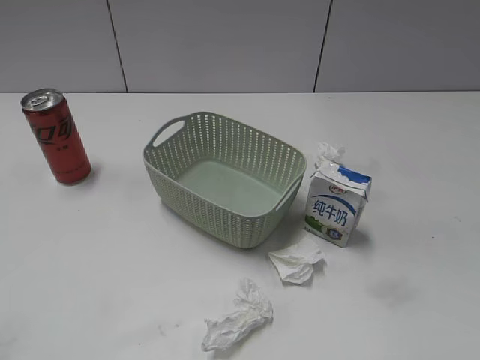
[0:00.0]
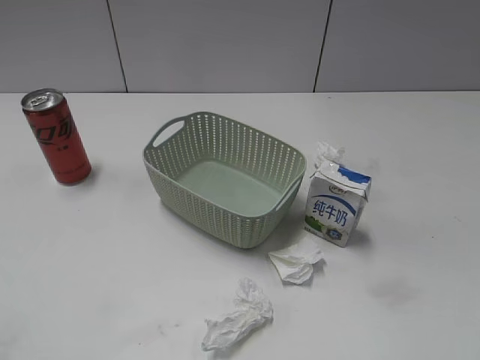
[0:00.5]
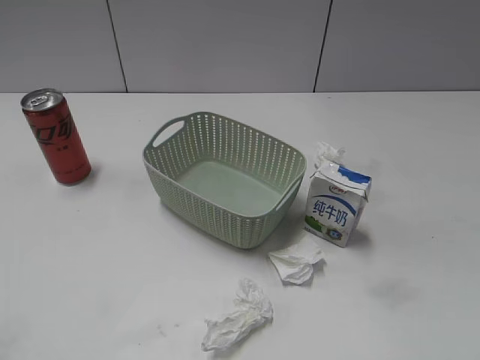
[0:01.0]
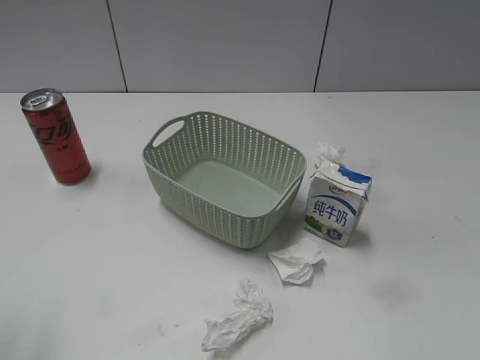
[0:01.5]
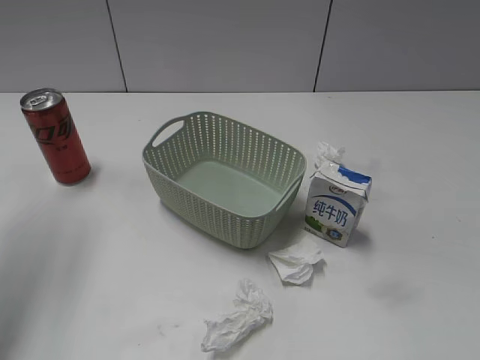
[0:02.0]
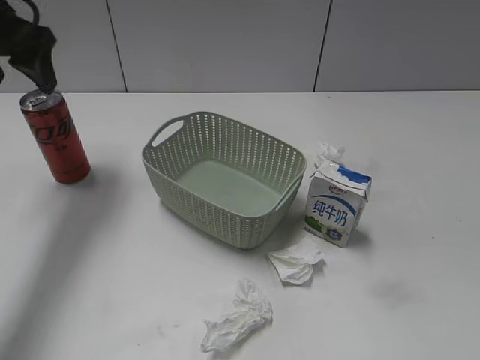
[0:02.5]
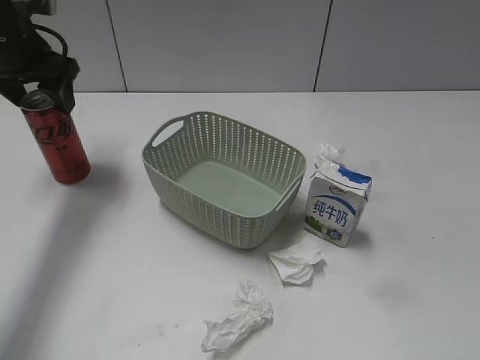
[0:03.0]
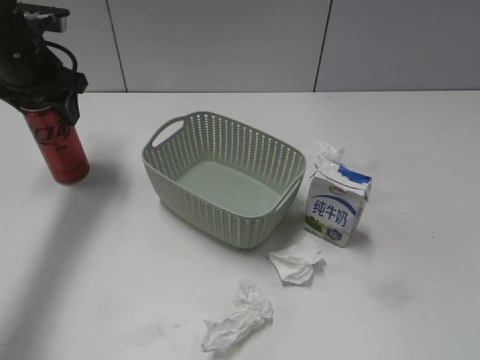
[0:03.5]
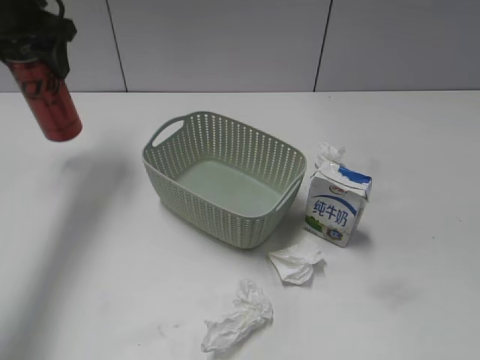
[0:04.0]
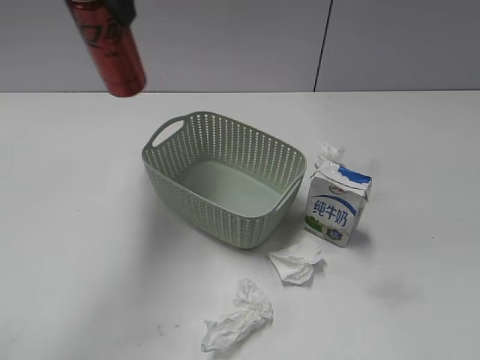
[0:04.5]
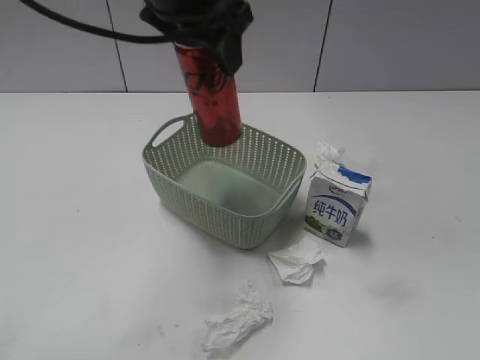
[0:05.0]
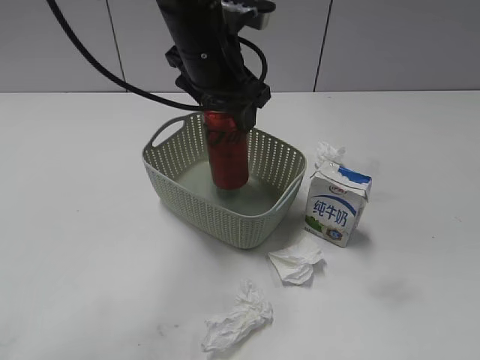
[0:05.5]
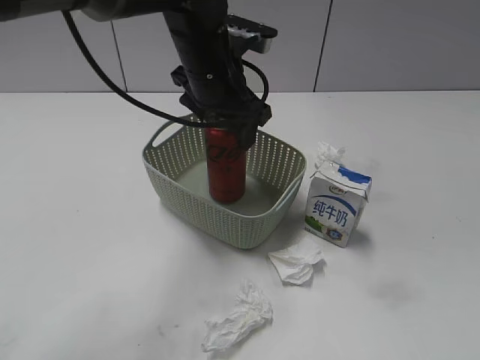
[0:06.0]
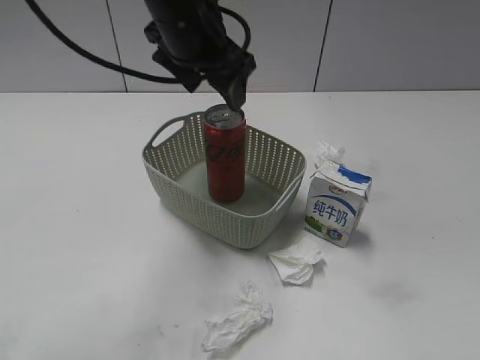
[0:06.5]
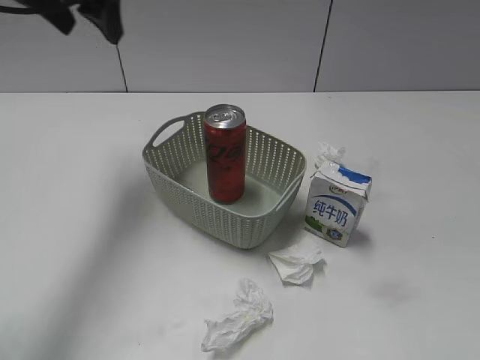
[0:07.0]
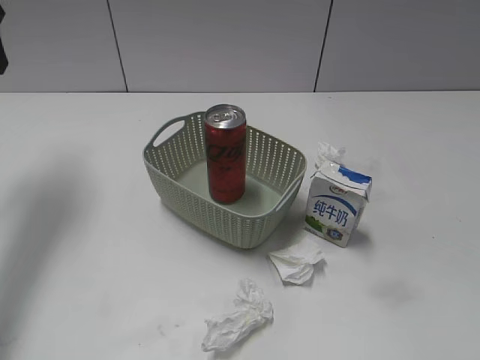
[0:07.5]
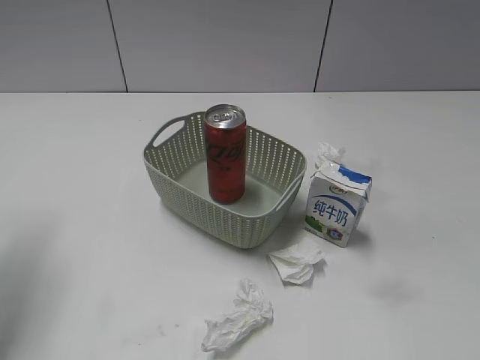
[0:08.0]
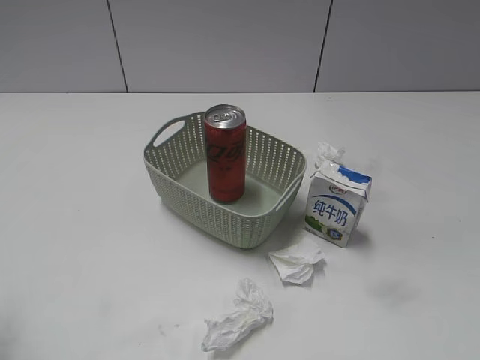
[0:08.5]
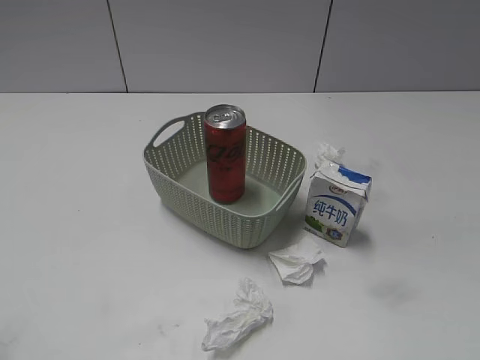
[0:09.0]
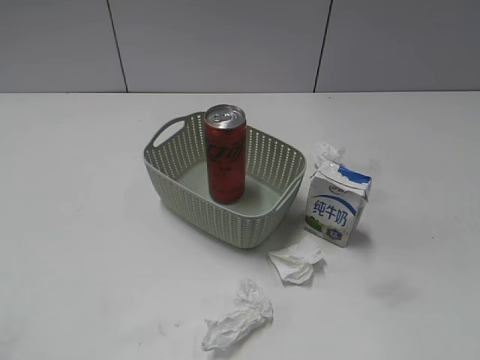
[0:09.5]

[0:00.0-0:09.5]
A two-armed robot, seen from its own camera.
Step, 2.5 to 3.5 s: Grasp the cola can with left gripper.
Step, 4.0 to 6.5 s: Place the cola can in the basket with left gripper.
2.0 to 4.0 s: The left gripper is displaced forward and downward by approximately 20 cm, and closes up.
4.0 to 5.5 s: The left gripper goes some 25 cm to the right.
5.5 to 7.5 s: The left gripper moves to the left, some 30 cm, and opens up.
7.5 to 9.5 s: The left gripper moves backward, about 35 cm.

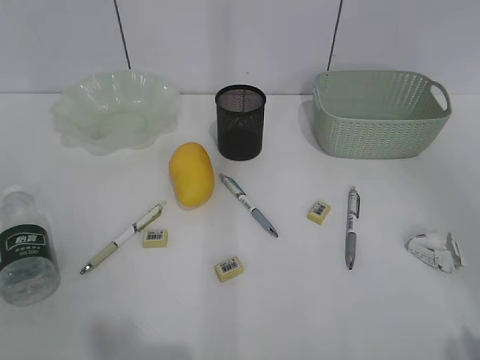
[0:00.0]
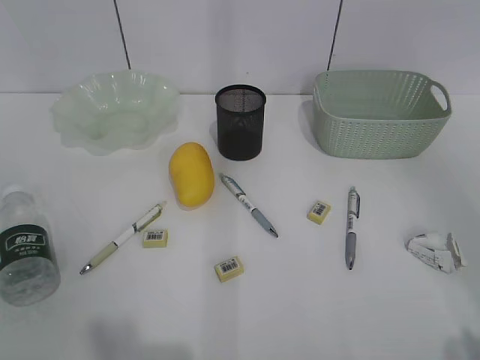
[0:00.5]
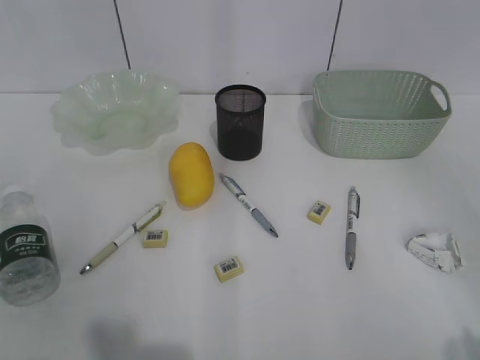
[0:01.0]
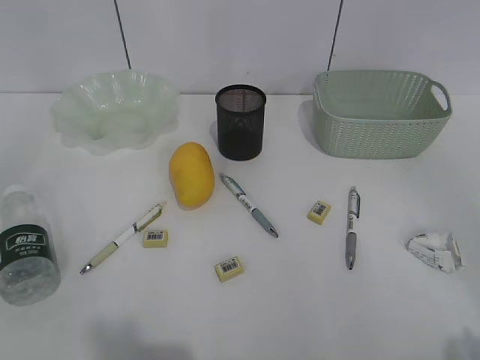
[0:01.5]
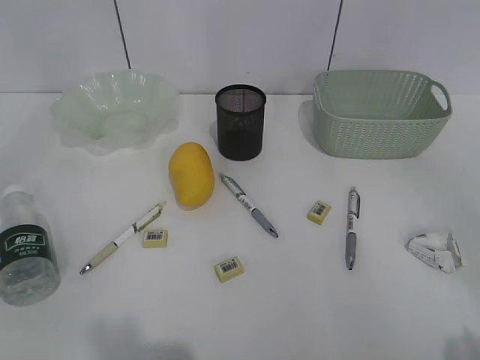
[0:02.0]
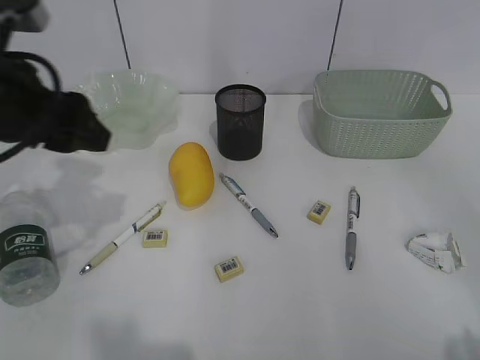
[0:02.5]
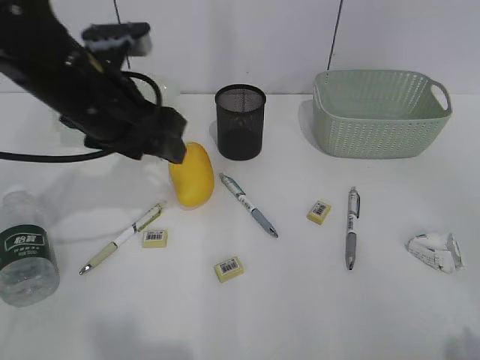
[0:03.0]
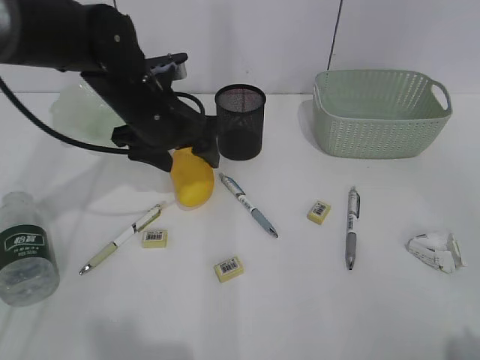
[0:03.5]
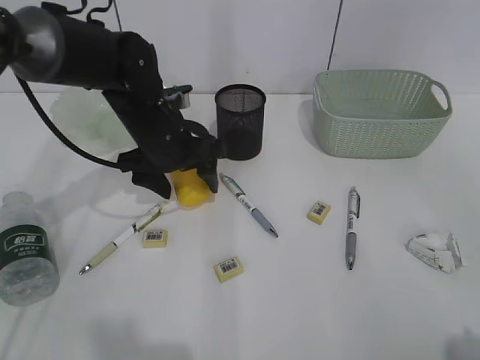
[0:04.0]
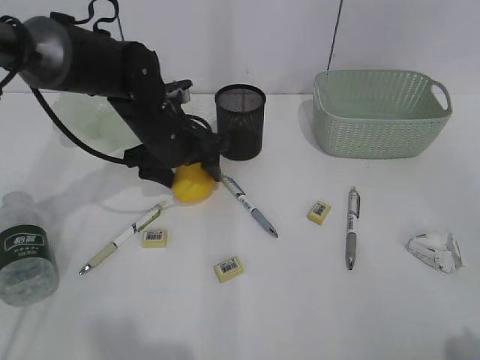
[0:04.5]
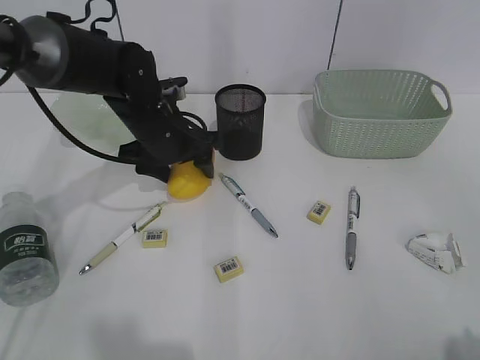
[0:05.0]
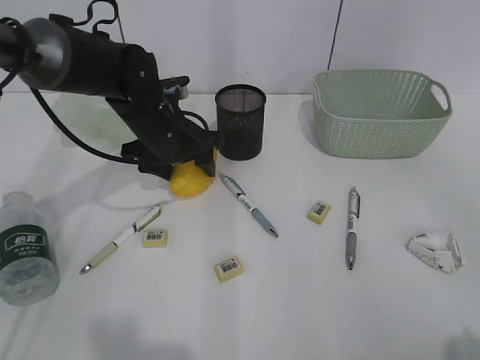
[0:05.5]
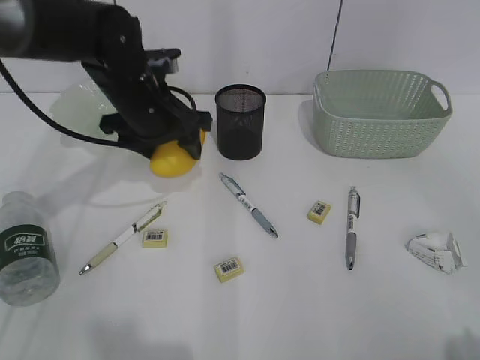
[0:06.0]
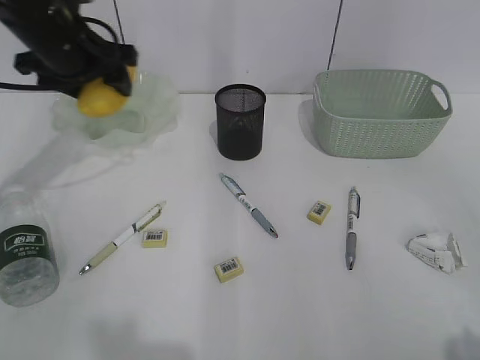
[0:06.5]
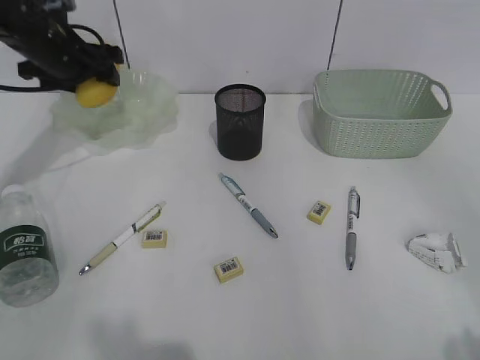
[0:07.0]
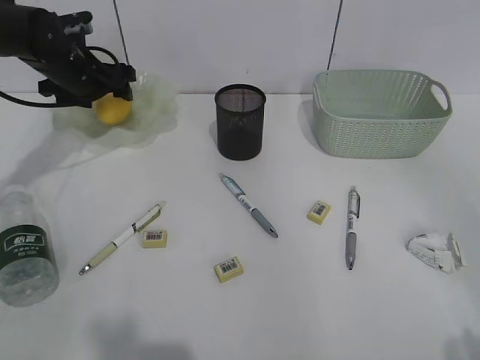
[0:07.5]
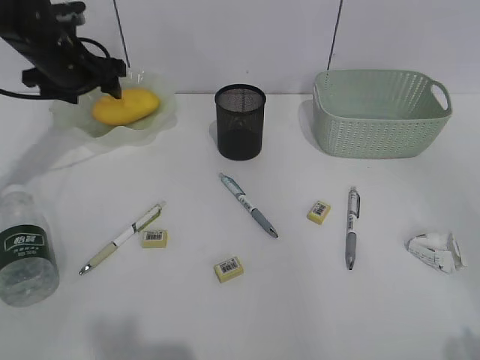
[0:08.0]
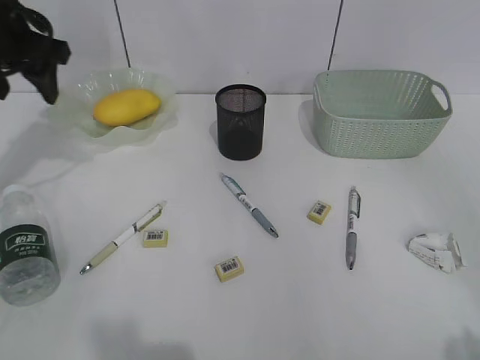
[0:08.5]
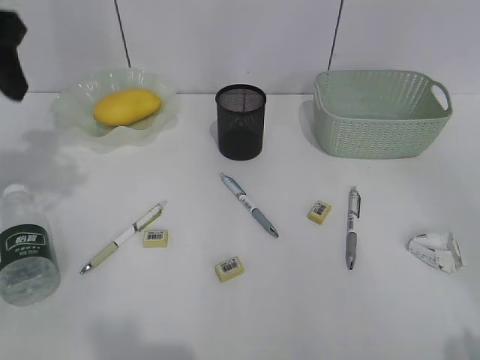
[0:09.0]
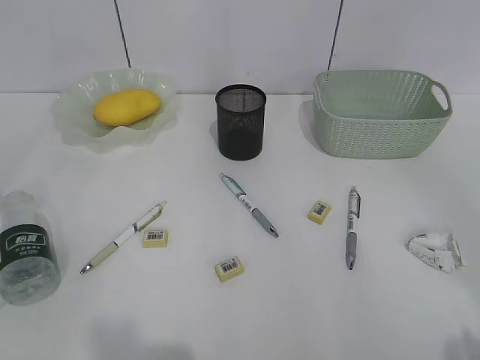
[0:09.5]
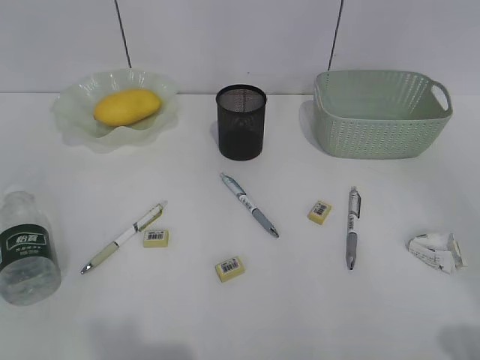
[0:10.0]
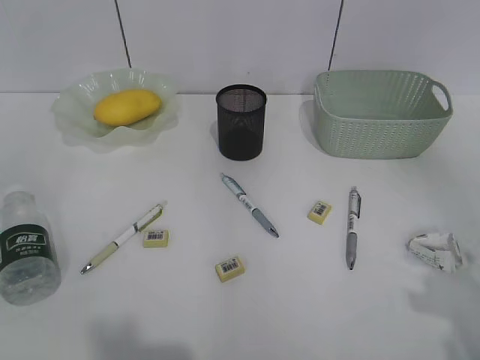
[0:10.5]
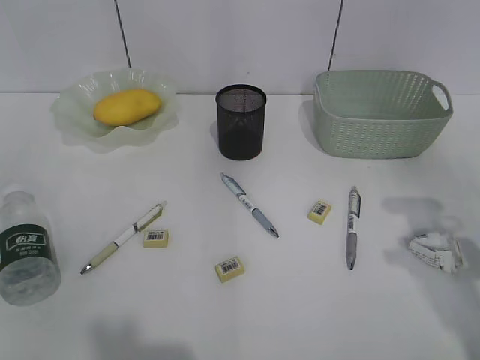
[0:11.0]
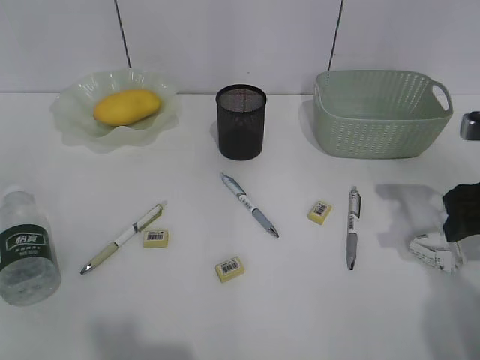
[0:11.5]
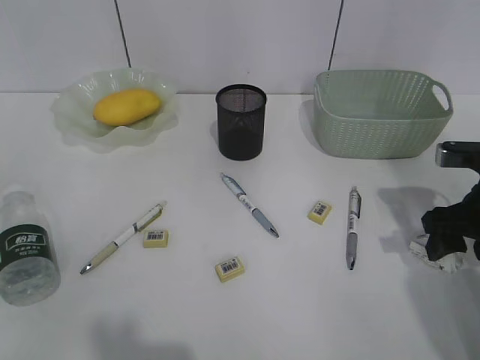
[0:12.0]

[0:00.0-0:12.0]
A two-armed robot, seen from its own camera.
Step, 2.5 to 5.5 s: Grasp the mango with left gripper.
Step, 6.0 to 7.5 s: Place the mango in the plate with left gripper.
2.0 to 4.0 s: The left gripper goes some 30 cm to the right, forward and downward.
4.0 to 6.0 s: The grippers move only a little.
6.0 to 8.0 s: The left gripper is displaced to the left and forward by approximately 15 cm.
8.0 to 10.0 s: The left gripper shifts about 40 cm backward.
10.0 to 12.0 s: The right gripper heads forward and downward, covering some 30 cm.

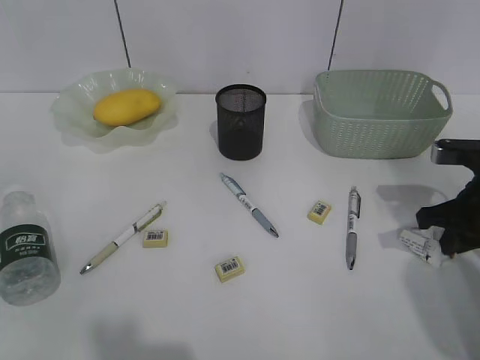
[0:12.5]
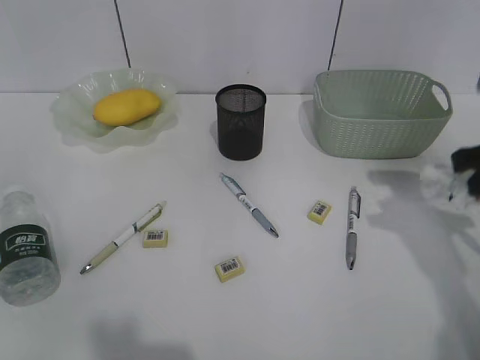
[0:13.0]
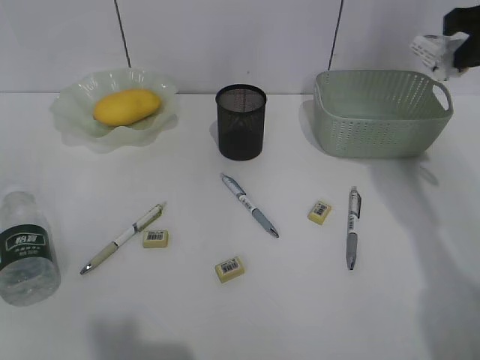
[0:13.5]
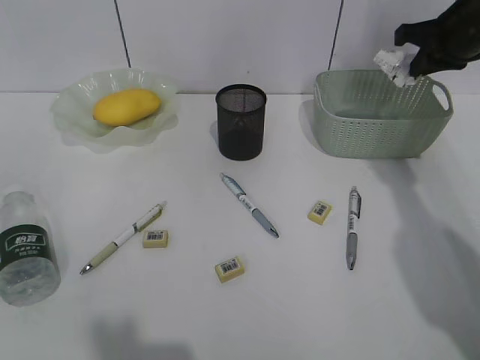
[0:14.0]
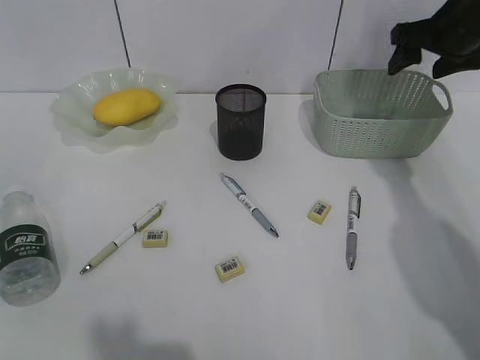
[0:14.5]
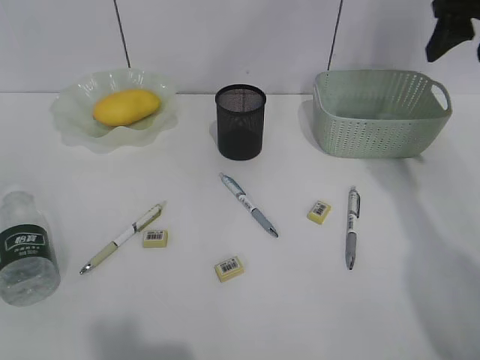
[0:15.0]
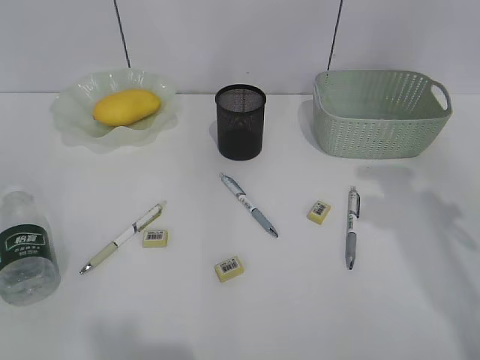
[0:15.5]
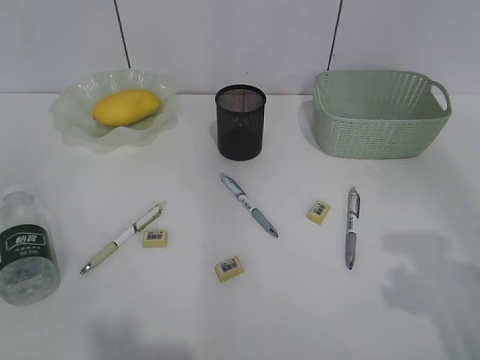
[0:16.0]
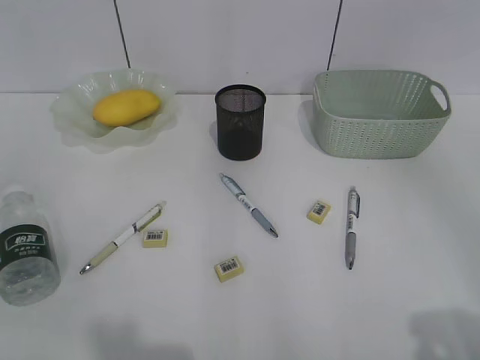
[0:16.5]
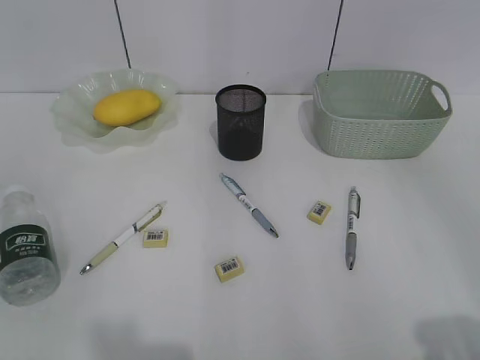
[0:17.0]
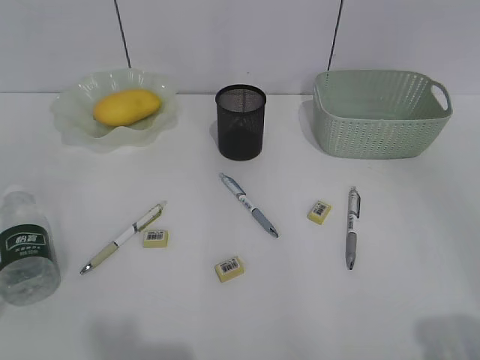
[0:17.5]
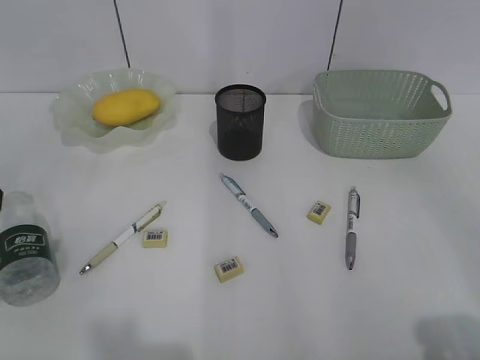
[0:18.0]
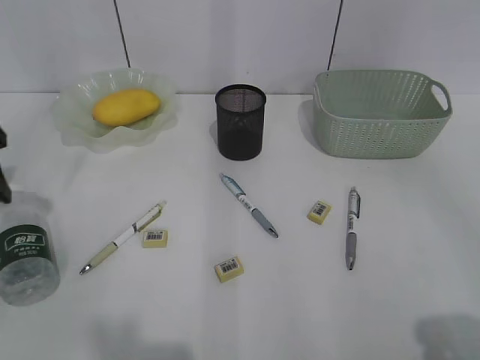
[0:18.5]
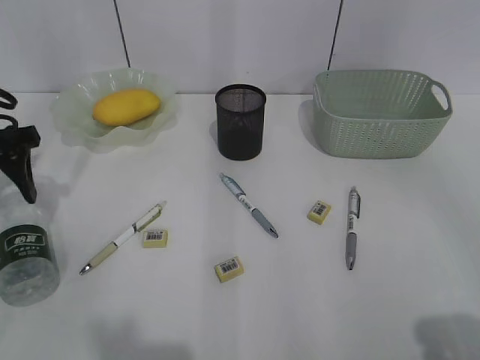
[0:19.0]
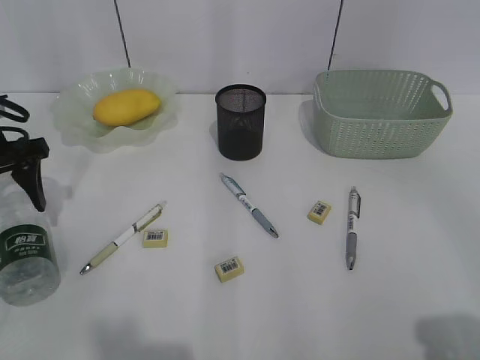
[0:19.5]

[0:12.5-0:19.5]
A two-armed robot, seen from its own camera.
Step, 13.0 to 14.0 s: Place the waste paper in the basket with right gripper.
12.5 to 14.5 s: The right gripper goes some 20 cm forward and upward, and opens up.
14.5 to 16.0 s: The right gripper travels backward by about 30 cm.
17.5 to 19.5 s: The left gripper shifts roughly 30 cm forward and downward.
